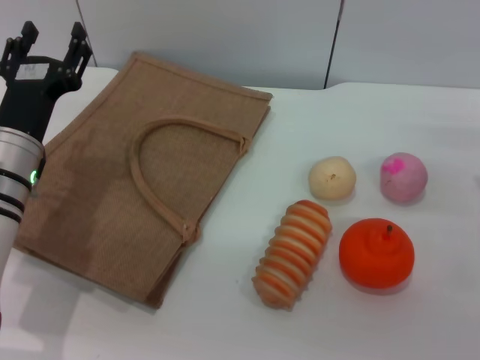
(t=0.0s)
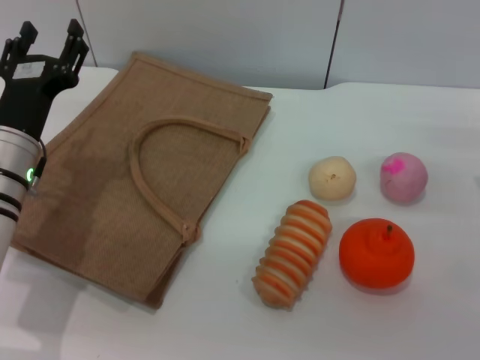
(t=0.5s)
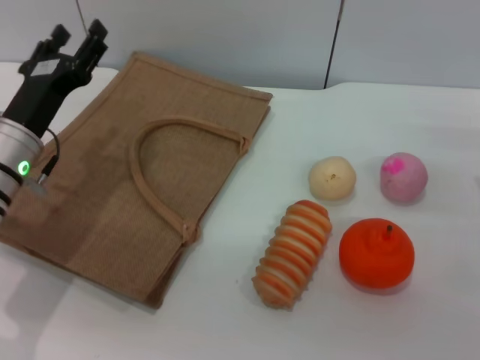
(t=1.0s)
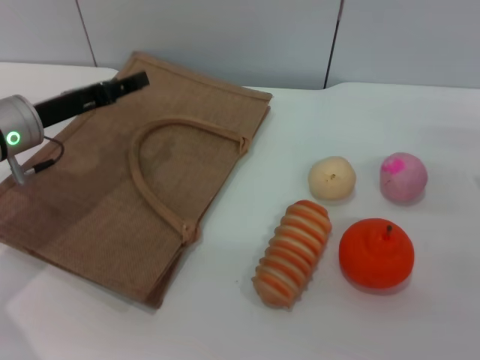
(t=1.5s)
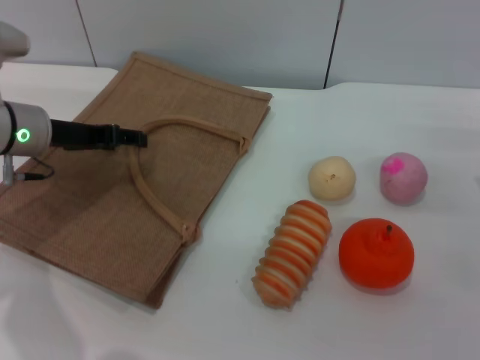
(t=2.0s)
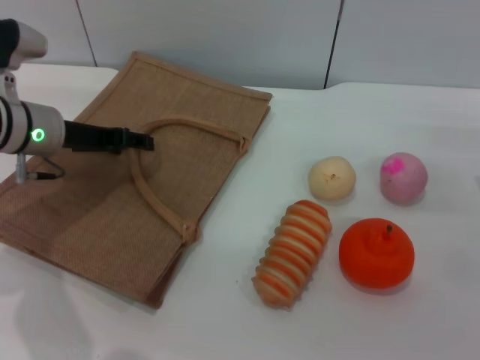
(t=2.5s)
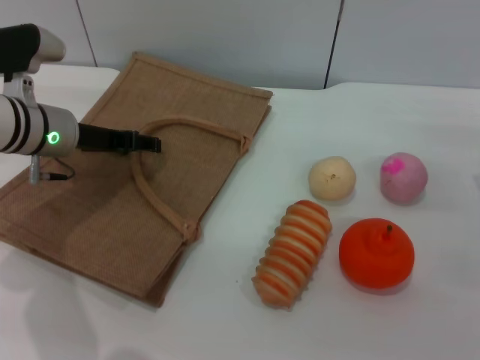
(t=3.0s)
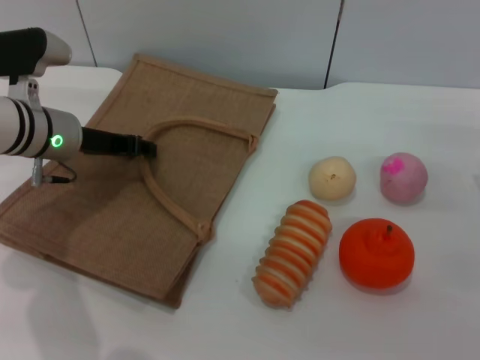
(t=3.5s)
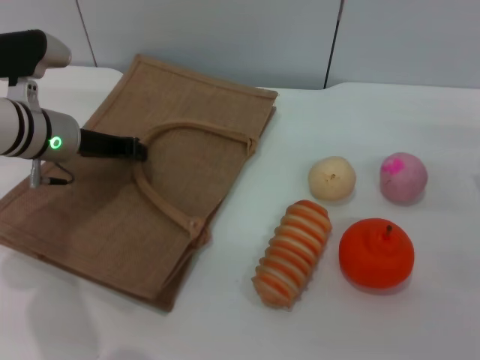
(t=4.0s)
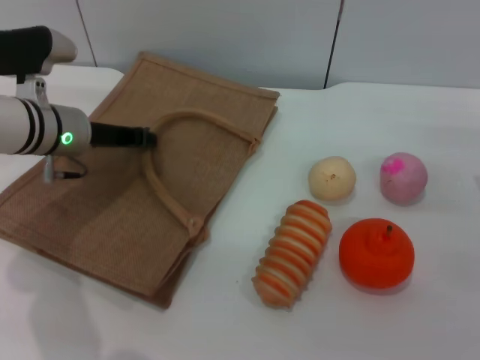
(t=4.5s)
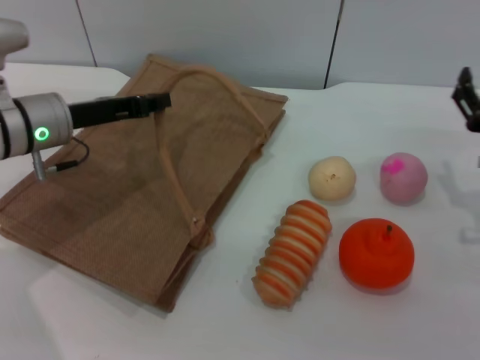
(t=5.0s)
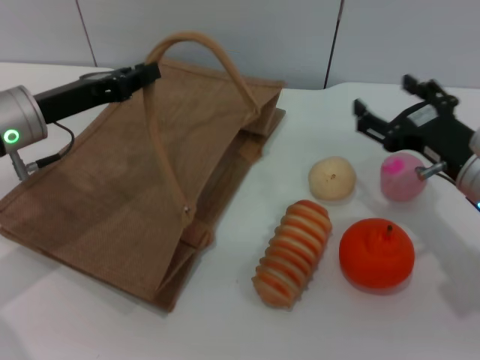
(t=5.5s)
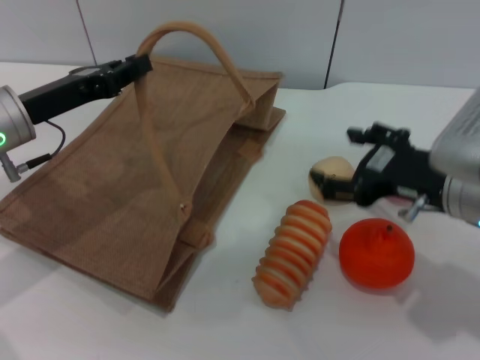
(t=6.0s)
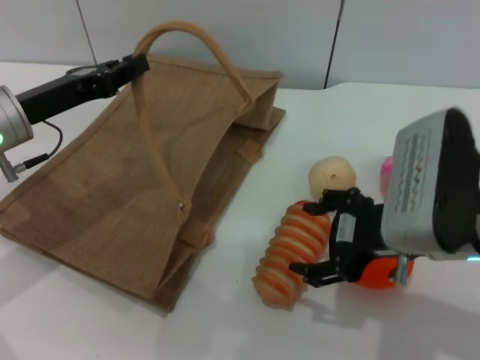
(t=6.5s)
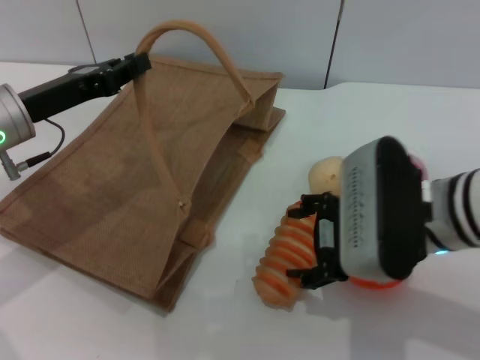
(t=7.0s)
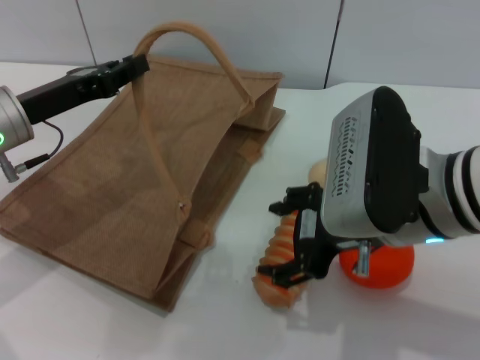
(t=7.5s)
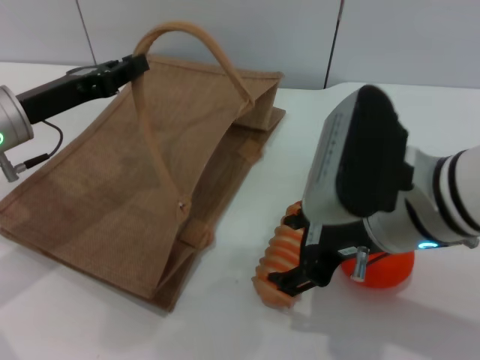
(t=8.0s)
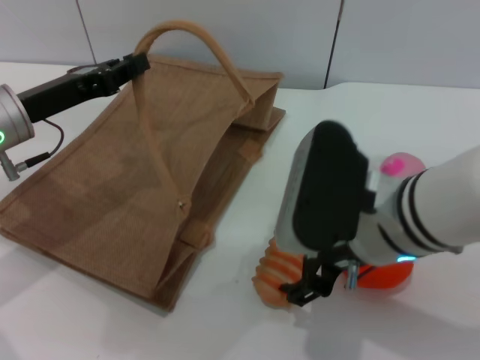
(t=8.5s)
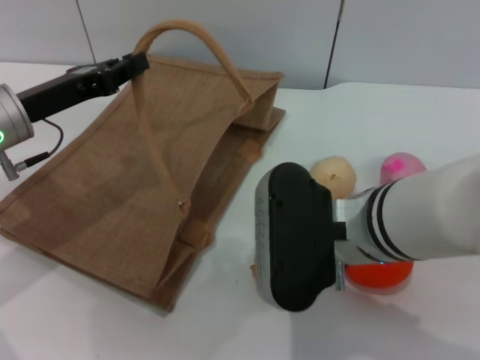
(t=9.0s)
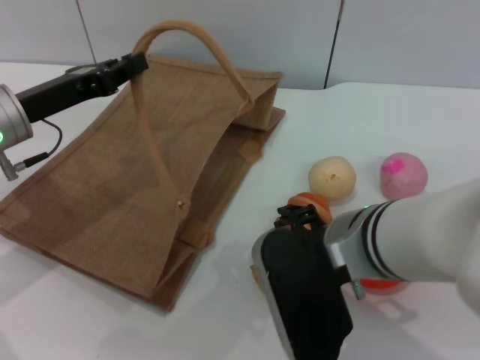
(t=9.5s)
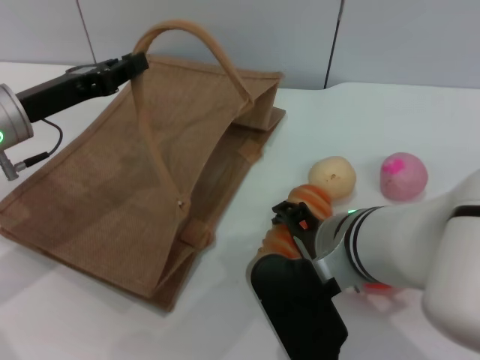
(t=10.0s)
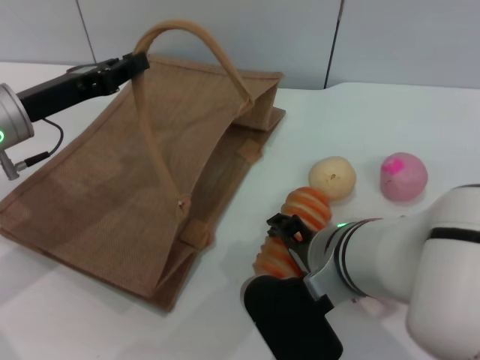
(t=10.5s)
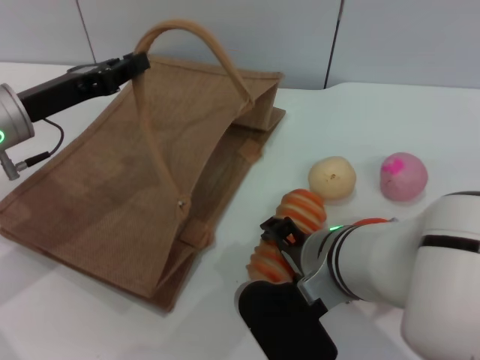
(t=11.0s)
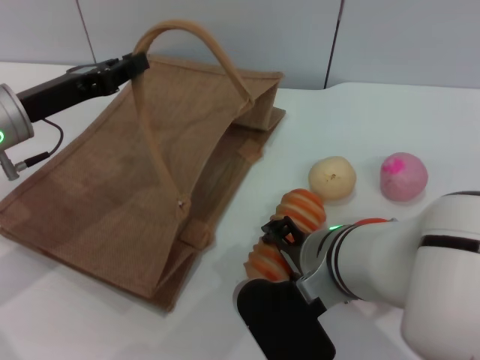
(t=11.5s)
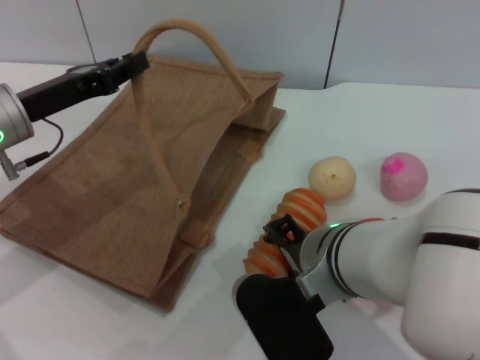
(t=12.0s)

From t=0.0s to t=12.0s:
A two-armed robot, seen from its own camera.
Task of the whole recording: pick up the bread from the table and place it in the brown handbag.
Step, from t=0.0s to t=4.5s: Lift the woven bag with the left gripper to open it.
From t=0.0s to t=2.0s: The left gripper heads forward, covering about 5 cm.
From t=2.0s to t=4.0s: The left gripper closes.
From t=4.0s to t=6.0s: The left gripper heads backward, covering approximately 5 cm, while the right gripper travels to the left and upward by approximately 10 cm.
From t=6.0s to t=8.0s: The right gripper moves to the left, some 10 cm.
From t=8.0s to t=10.0s: The right gripper shifts by roughly 5 cm.
From t=10.0s to t=12.0s: The right gripper closes up.

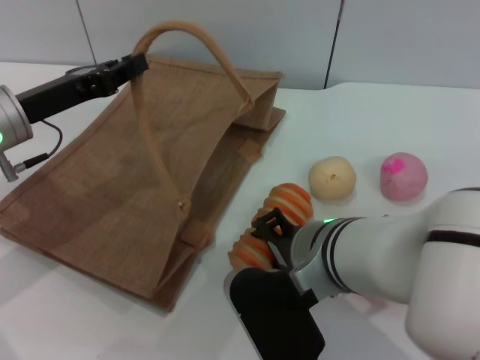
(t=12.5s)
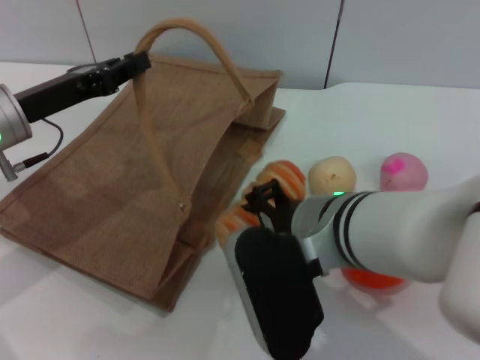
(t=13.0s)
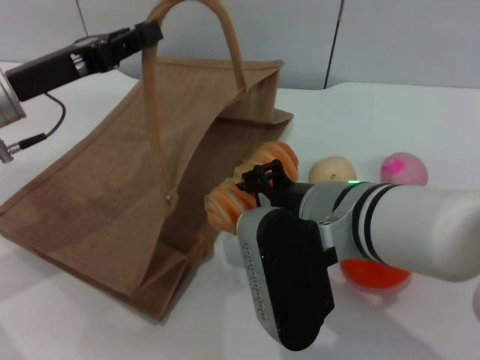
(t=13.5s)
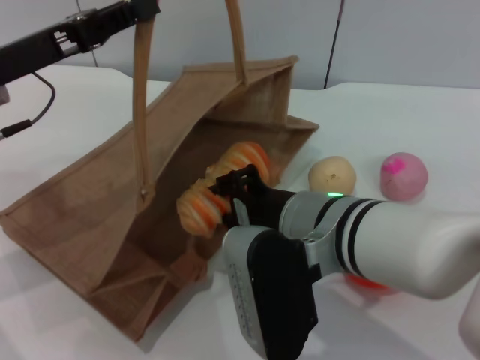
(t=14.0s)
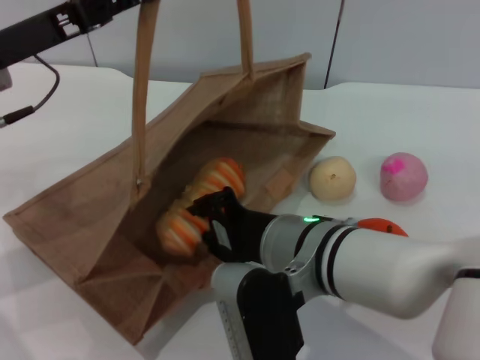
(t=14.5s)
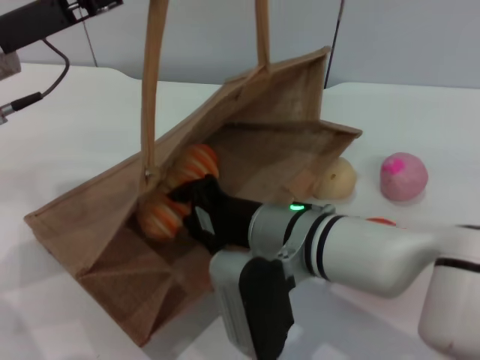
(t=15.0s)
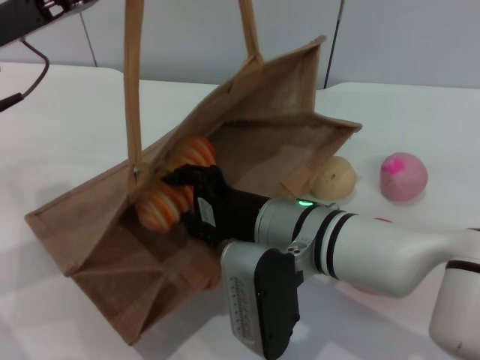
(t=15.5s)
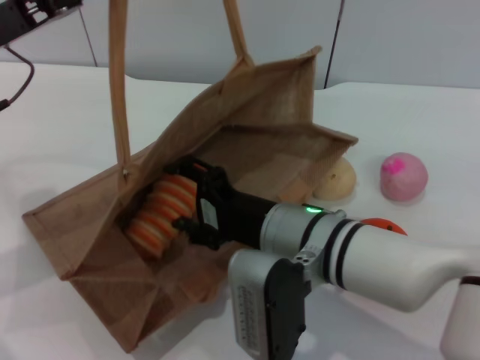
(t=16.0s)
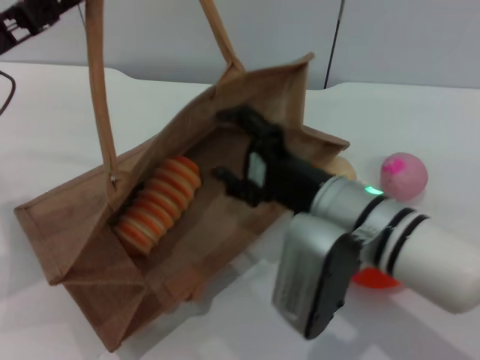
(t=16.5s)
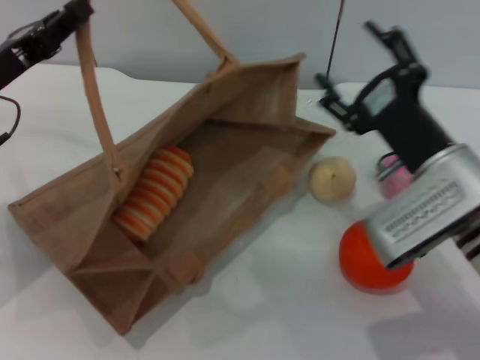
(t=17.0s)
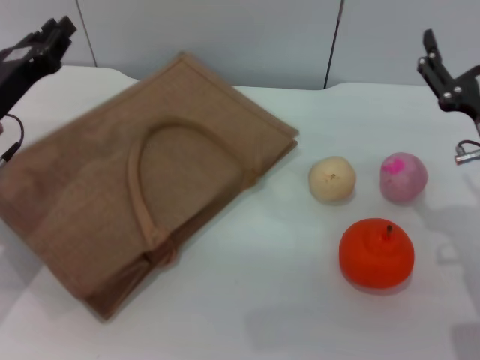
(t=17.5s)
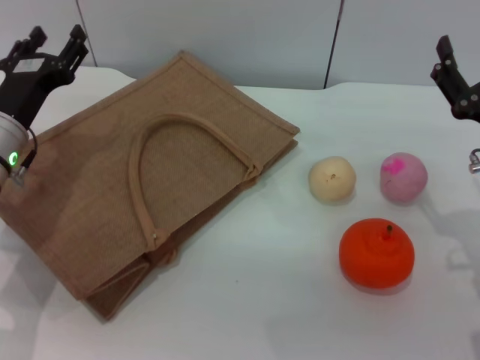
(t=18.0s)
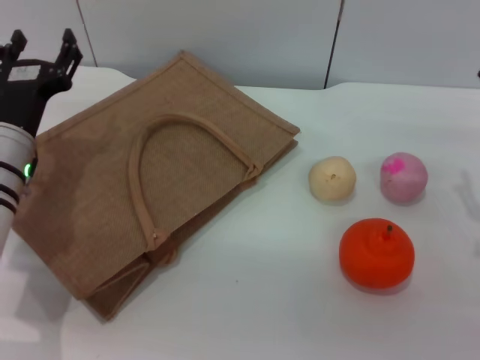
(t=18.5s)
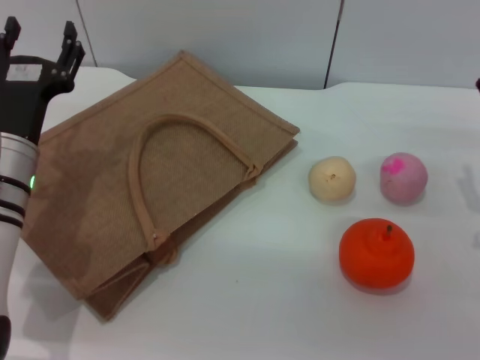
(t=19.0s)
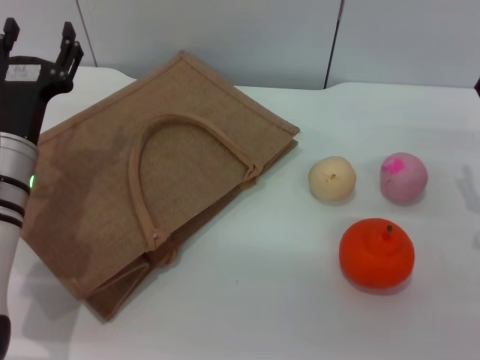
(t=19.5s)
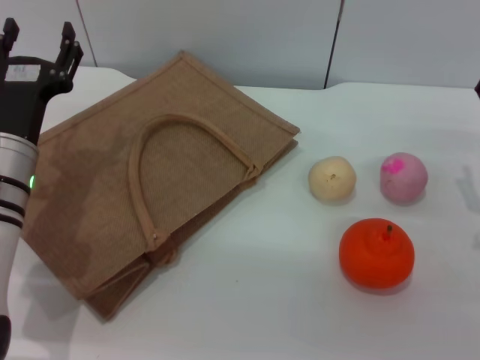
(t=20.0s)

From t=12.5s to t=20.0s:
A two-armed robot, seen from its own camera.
Task of the whole recording: pick up the bread from the table and place it in the brown handbag.
Step, from t=13.5s to t=16.5s: Place the bread into the woven bag with the right gripper.
Step, from t=17.0s to t=17.5s: Lower the woven bag with the left gripper to close it.
From t=12.5s to t=14.5s: The left gripper goes about 5 cm upward.
From t=14.5s to t=16.5s: The right gripper opens up.
From t=16.5s to t=18.0s: The right gripper is displaced to the right by some 15 cm; the left gripper goes about 10 cm downward, and opens.
From t=18.0s to t=20.0s: The left gripper opens.
